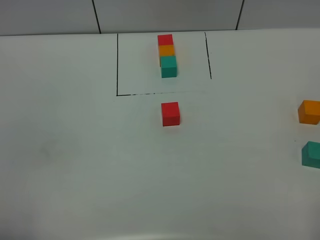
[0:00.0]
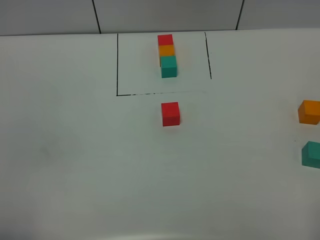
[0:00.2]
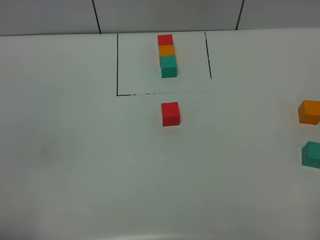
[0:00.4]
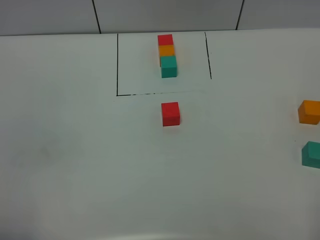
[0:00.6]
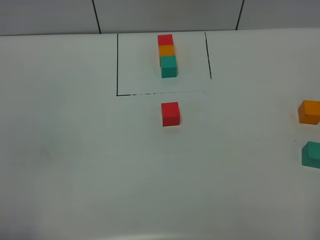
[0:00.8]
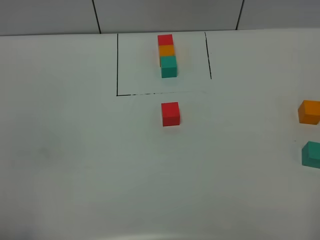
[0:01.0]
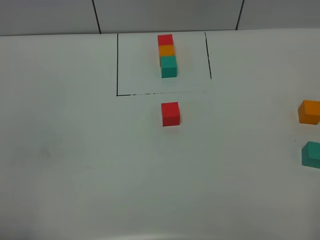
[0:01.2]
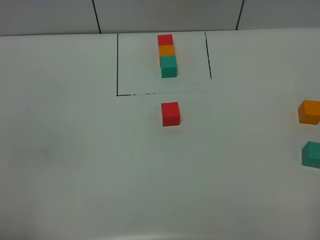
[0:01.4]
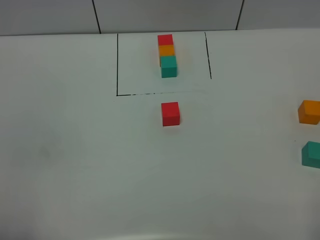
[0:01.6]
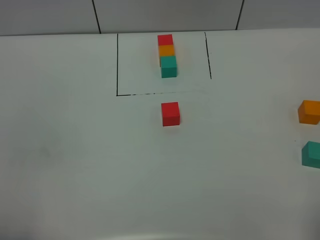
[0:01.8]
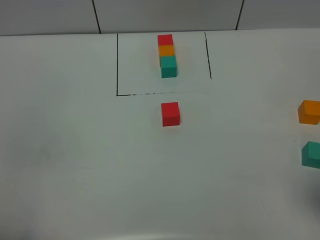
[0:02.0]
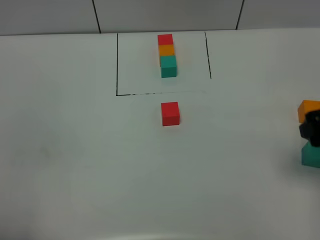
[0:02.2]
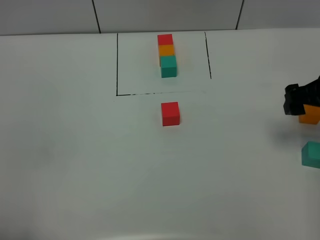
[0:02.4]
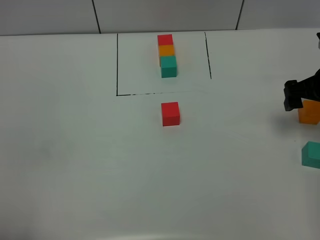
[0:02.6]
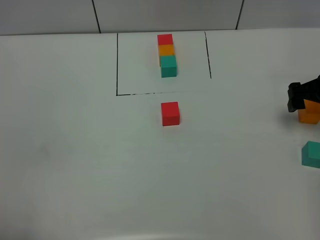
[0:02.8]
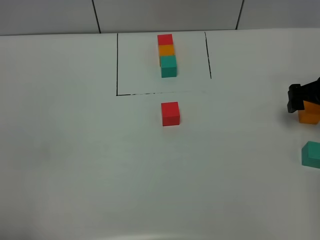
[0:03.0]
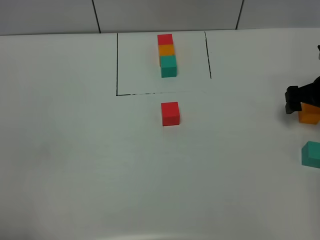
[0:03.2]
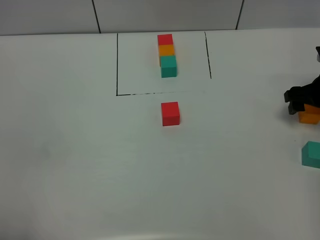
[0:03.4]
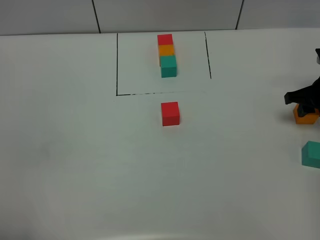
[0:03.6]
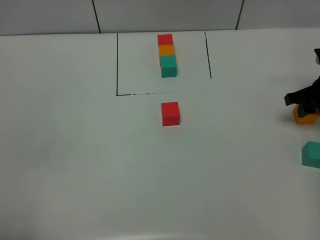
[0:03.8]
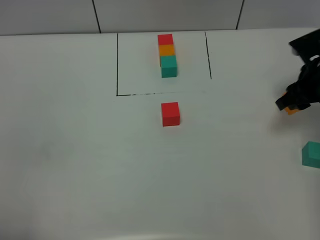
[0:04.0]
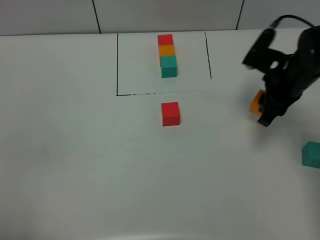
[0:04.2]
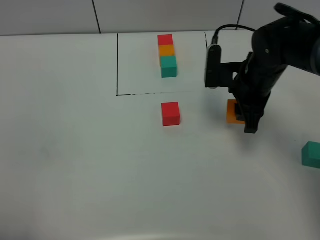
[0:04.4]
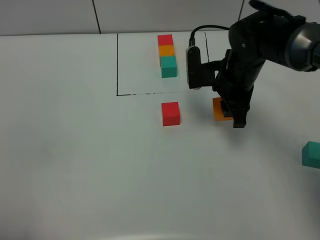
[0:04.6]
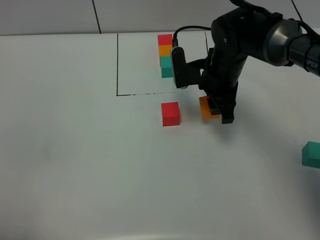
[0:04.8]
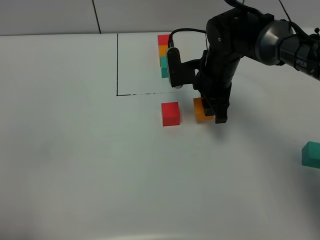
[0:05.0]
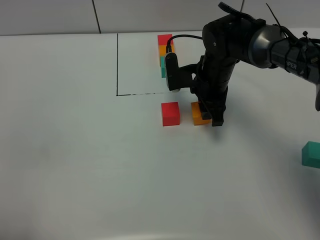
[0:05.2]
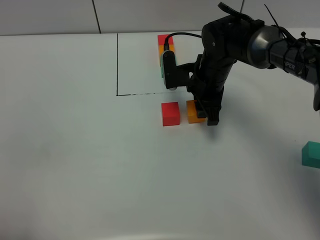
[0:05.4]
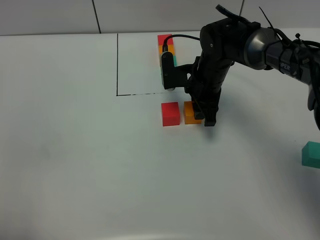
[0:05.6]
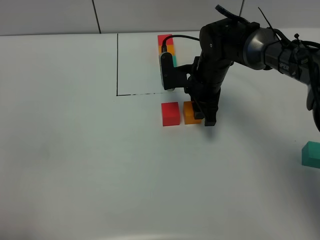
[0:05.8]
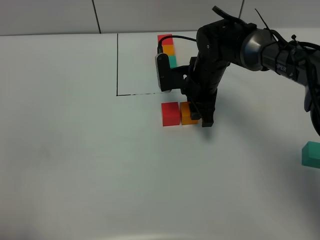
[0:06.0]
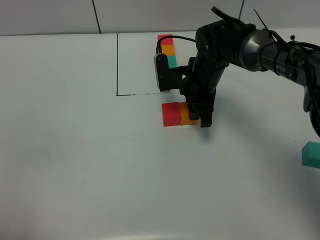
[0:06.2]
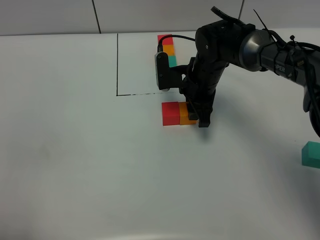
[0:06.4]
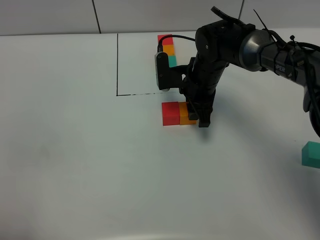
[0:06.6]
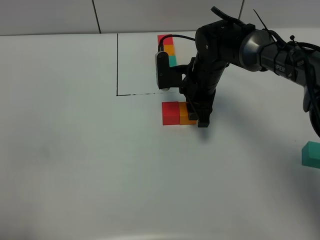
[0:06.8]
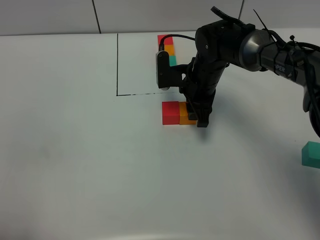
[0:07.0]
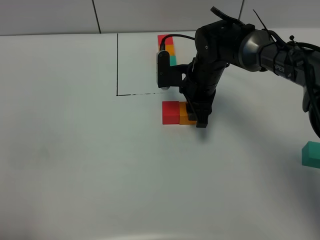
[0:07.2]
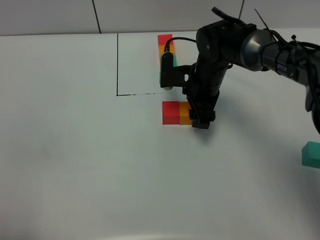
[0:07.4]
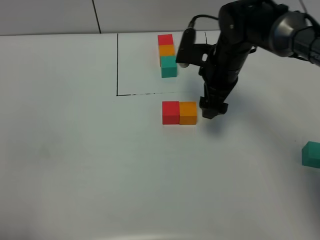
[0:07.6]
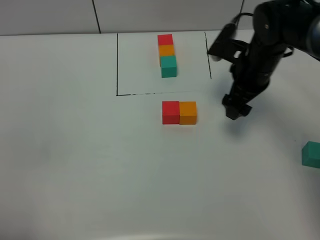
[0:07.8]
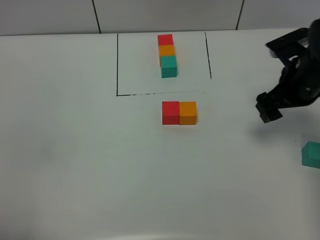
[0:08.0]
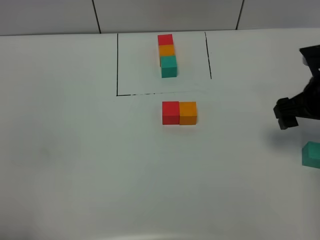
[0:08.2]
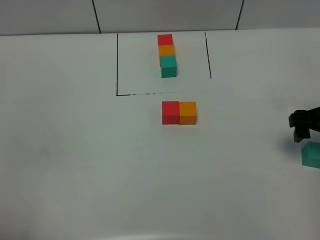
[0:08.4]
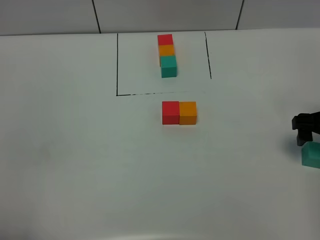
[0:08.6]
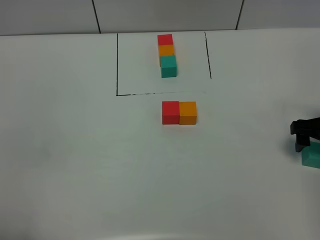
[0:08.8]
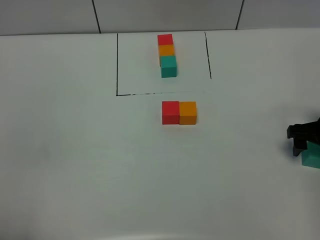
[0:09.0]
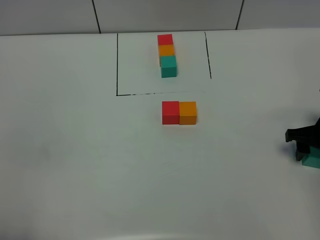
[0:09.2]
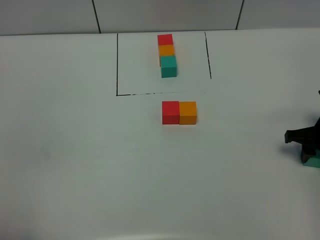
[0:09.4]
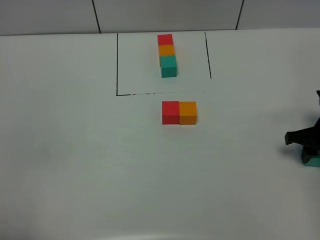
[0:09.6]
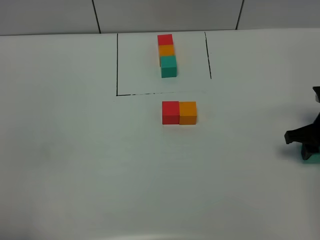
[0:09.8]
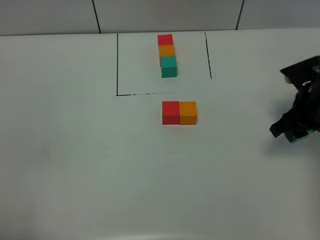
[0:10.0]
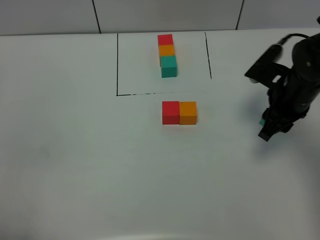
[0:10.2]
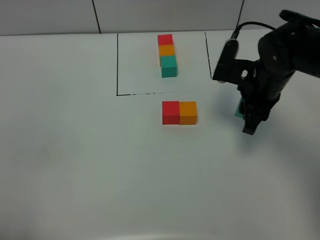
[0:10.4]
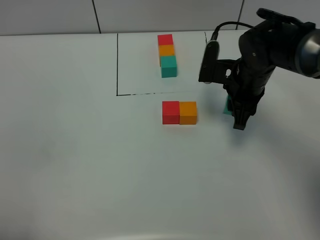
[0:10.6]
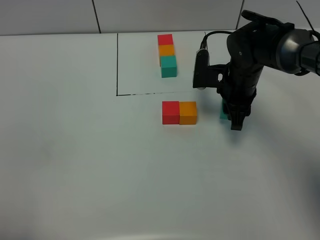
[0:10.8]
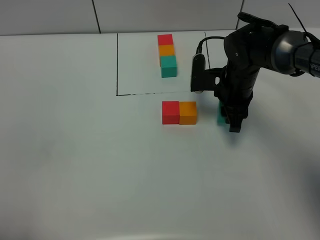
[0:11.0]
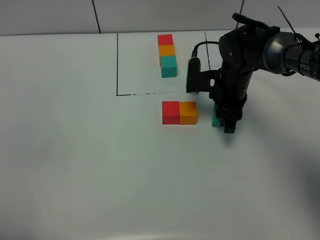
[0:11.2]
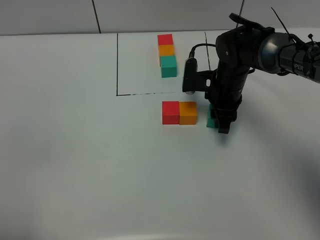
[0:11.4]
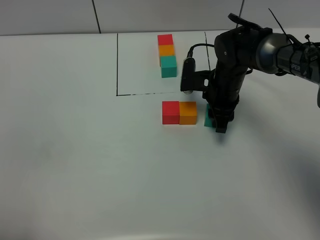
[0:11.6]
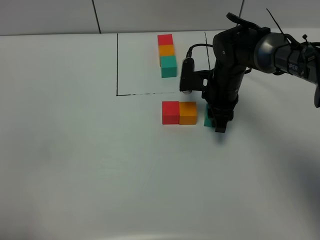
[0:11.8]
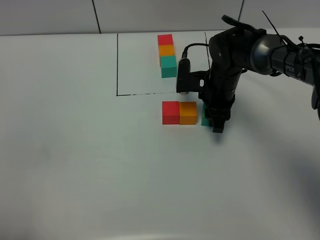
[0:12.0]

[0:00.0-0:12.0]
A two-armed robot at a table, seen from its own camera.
Task of the whole recording: According to the building block template in front, assemble the scattered blocks together.
Step, 0:00.0 to 0:07.2: Put the orange build block on the right of the red build block.
0:00.0 to 0:01.6: The two grippers keep their place.
0:01.6 to 0:03.0: The right gripper heads forward, covering some 35 cm.
0:03.0 to 0:04.4: The right gripper is displaced to the left by some 15 cm, and closes its fingers.
0:04.4 to 0:06.0: The right gripper heads to the left and forward, covering roughly 10 cm.
0:06.0 to 0:07.6: The right gripper goes roughly 5 cm upward, and opens.
0:07.6 to 0:09.0: The right gripper moves to the right and backward, about 20 cm.
0:09.0 to 0:10.4: The right gripper goes some 15 cm to the left and forward, and closes its fingers.
0:10.4 to 0:12.0: The right gripper goes roughly 10 cm downward, forward and to the left.

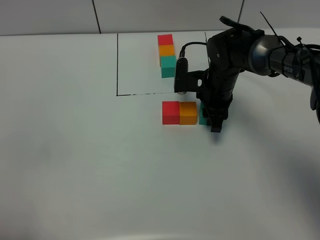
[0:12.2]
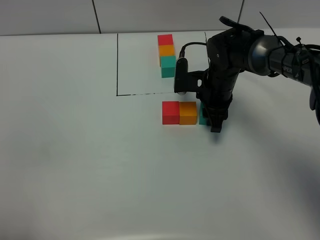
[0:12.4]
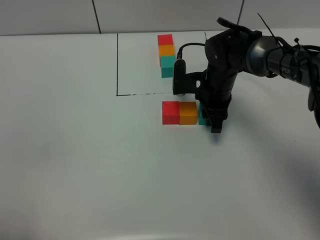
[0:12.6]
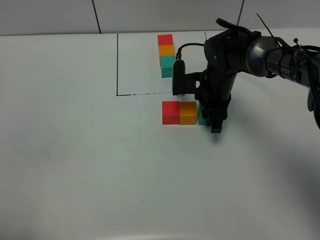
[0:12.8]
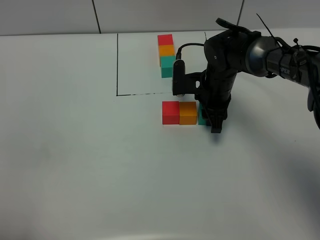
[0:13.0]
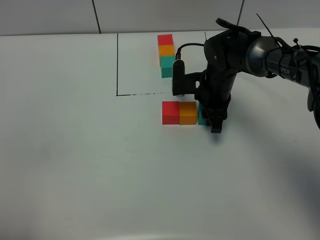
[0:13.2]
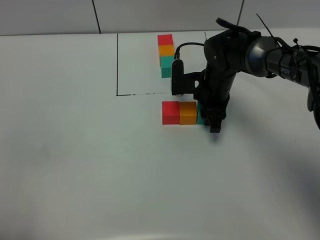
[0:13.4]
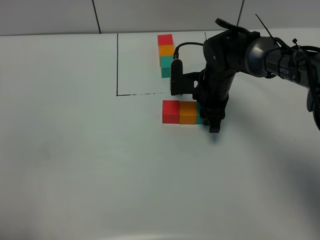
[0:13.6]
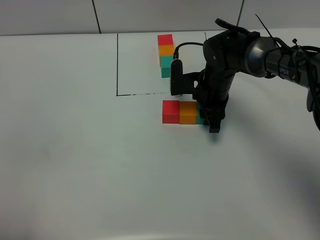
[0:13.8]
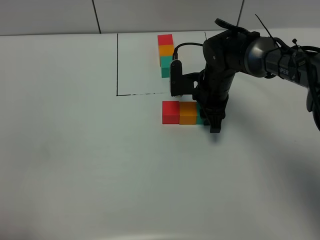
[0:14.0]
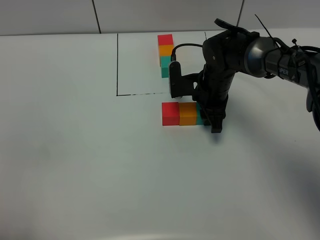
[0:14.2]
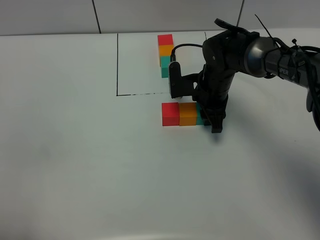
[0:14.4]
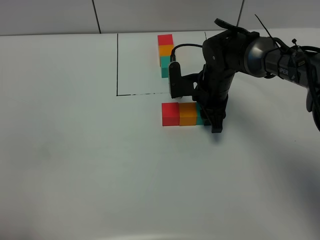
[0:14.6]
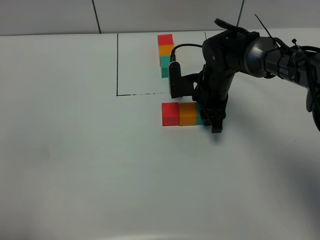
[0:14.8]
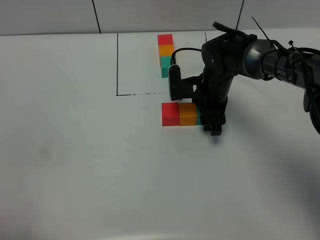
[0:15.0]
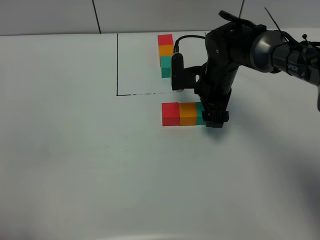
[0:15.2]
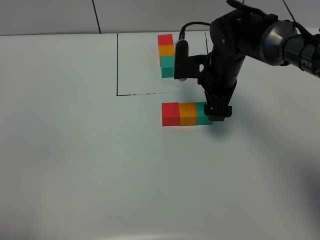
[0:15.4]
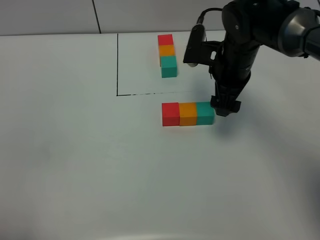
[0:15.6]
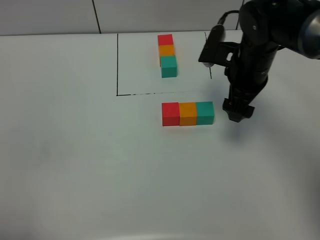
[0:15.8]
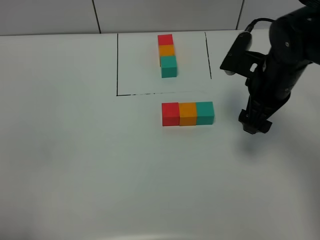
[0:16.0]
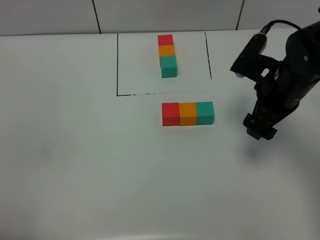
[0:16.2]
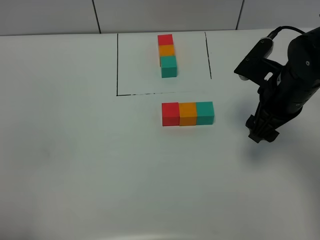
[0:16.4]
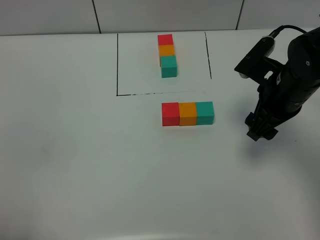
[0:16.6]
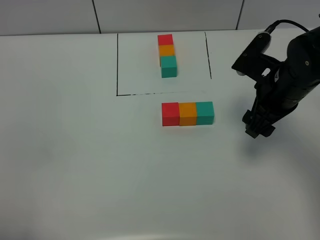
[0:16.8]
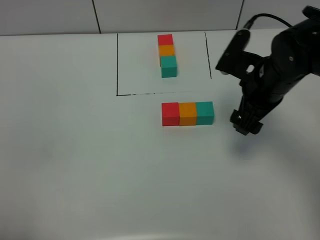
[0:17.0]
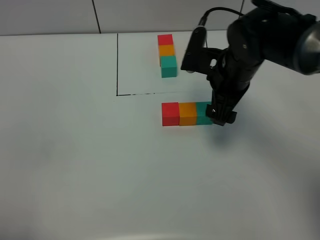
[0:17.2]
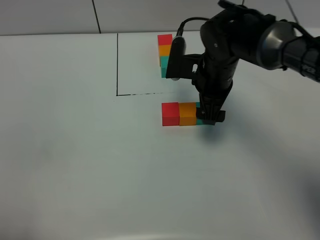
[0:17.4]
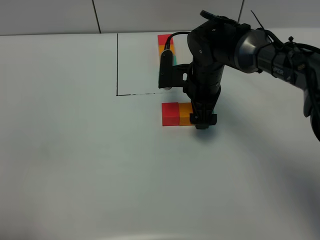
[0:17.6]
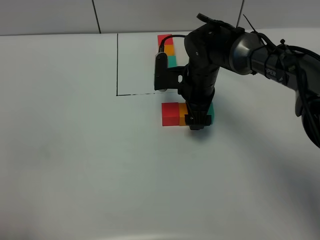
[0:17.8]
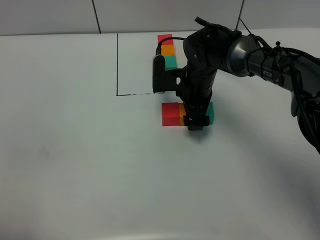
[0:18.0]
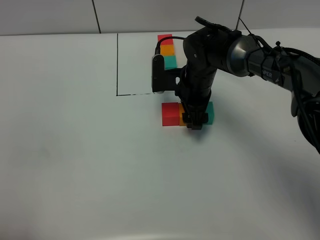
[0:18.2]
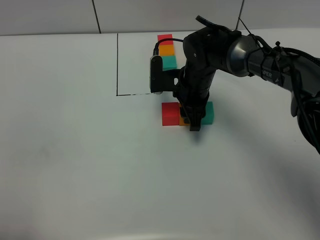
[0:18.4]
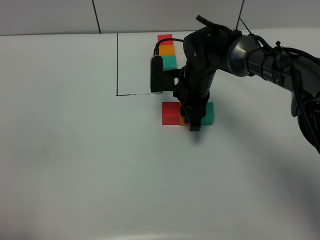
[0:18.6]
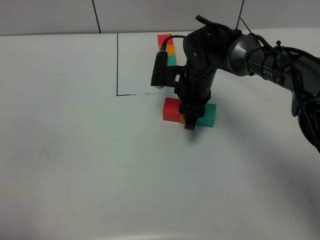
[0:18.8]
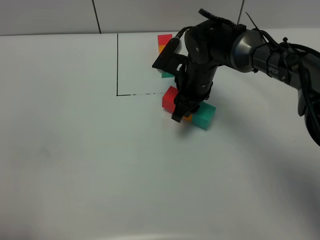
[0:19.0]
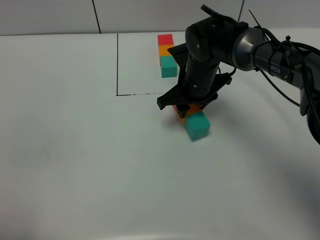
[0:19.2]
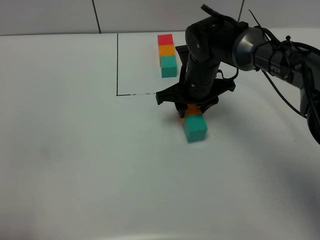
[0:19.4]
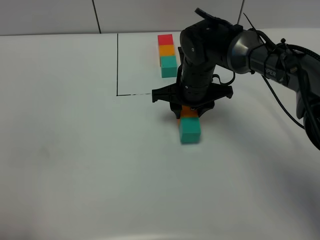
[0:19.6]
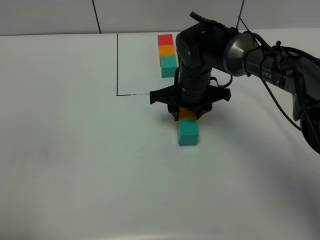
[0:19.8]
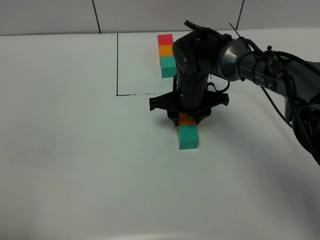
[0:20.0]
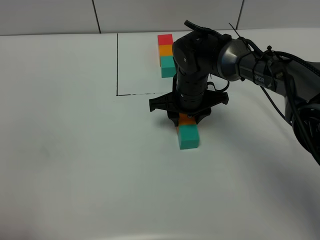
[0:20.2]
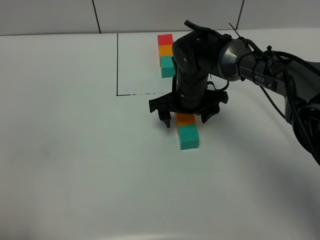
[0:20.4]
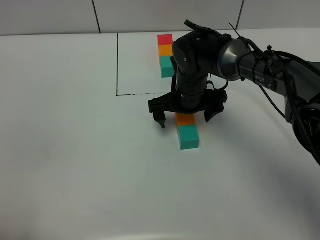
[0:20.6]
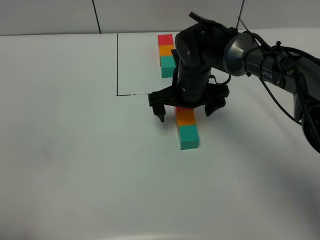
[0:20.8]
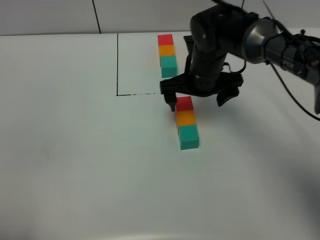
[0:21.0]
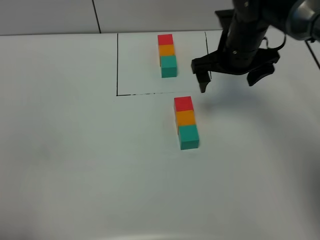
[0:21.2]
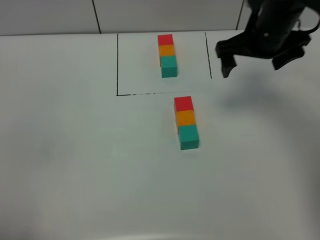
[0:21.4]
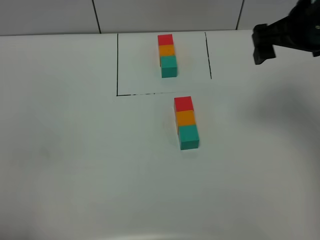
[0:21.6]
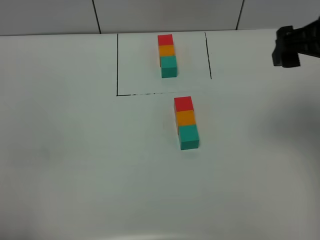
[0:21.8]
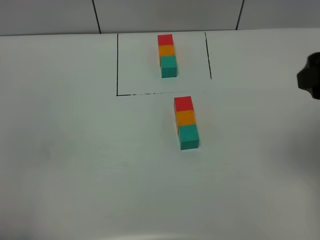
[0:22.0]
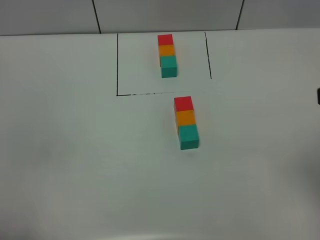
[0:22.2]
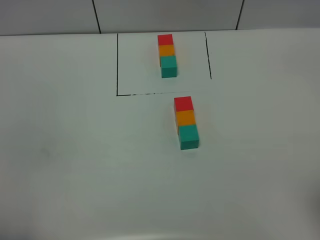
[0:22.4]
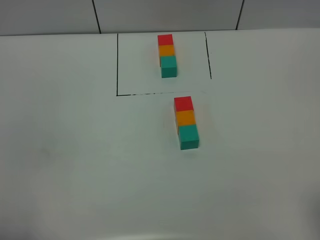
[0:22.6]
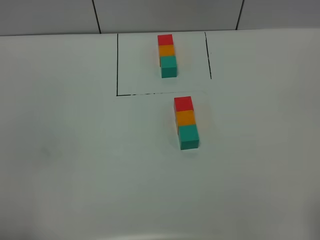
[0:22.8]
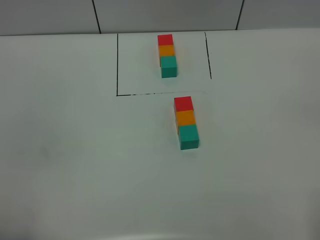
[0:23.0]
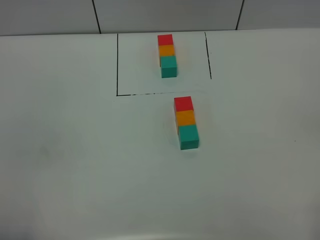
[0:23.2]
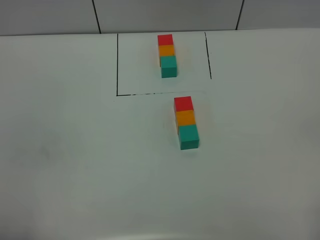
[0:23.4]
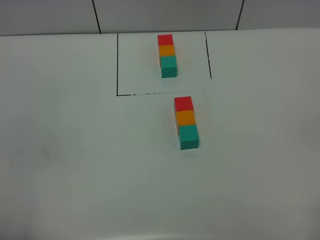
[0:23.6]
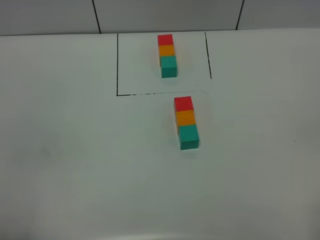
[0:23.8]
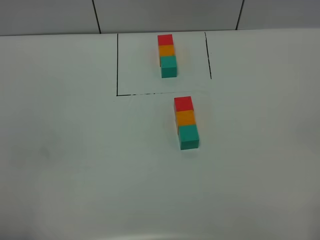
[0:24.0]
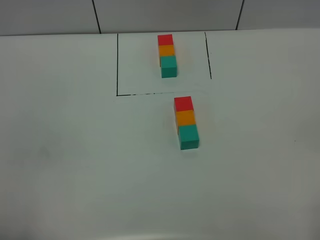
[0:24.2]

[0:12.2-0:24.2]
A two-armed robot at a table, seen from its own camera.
Task of the whole recording: According to the building block template in front, assemble the scattered blocks together.
Step, 0:12.2 to 0:15.0: Put the green build block on the right of the orange build block.
Step, 0:15.2 to 0:20.6: move the build block to the center of the table.
0:12.2 to 0:13.8: Neither gripper changes place.
0:13.8 to 0:15.2: The right gripper opens.
0:15.2 to 0:16.6: The right gripper shifts some 15 cm backward, to the right and upward.
0:16.6 to 0:18.2: The right gripper travels to the left, forward and downward by about 20 cm.
0:18.2 to 0:19.8: The right gripper closes up.
0:19.8 to 0:21.2: The right gripper is displaced to the right and upward by roughly 15 cm, and opens its fingers.
0:21.2 to 0:22.6: The right gripper is displaced backward by about 35 cm.
